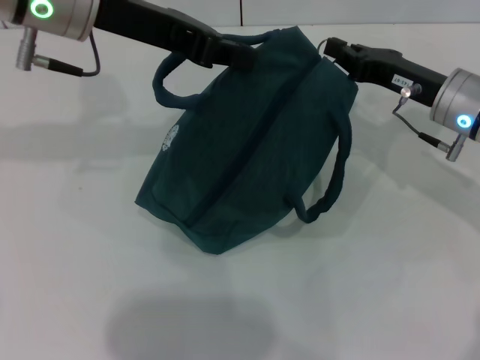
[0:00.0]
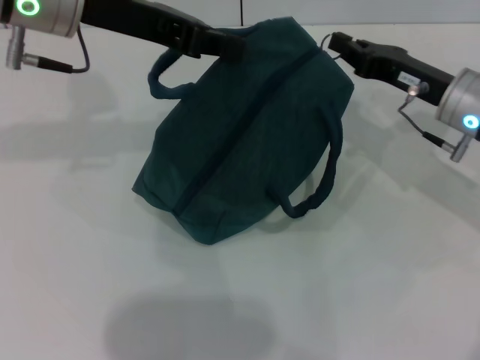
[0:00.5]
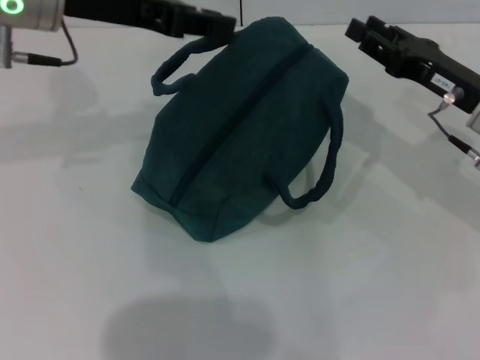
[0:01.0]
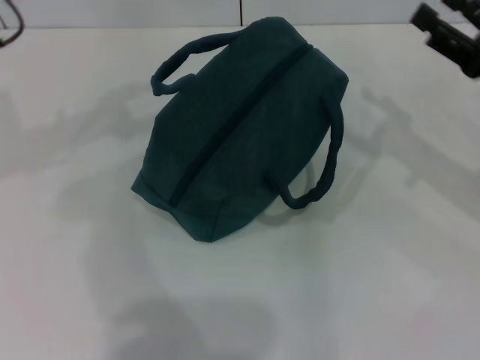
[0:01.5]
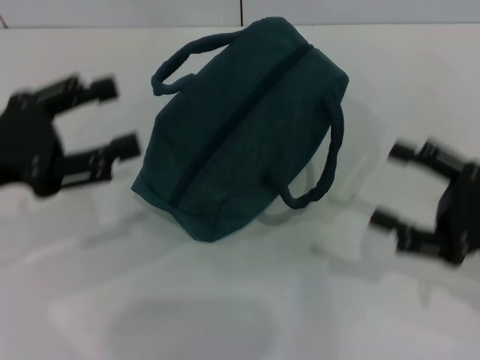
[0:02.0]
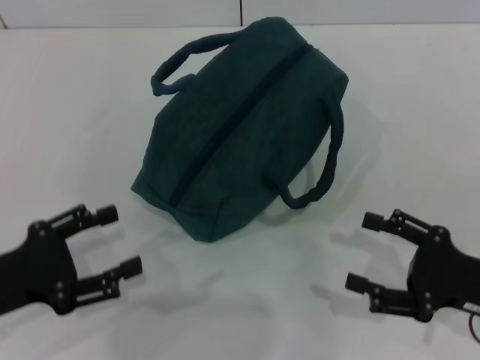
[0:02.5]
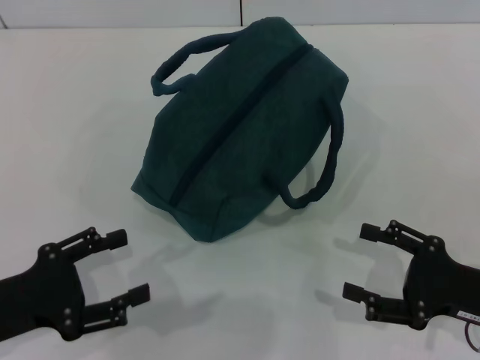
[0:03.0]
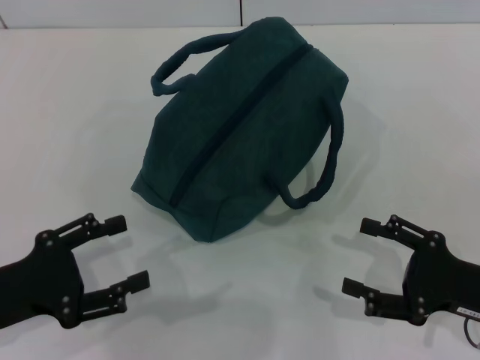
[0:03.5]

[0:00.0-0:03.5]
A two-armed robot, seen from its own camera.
0:00.0 to 0:02.0: The right gripper moves backward and to the right, approximately 15 cm, and opens. Meanwhile the left gripper moves backward, to the left and downward, some 20 cm, and opens.
0:02.0 to 0:03.5: The left gripper moves downward and backward, roughly 10 cm. The right gripper travels downward by about 5 cm.

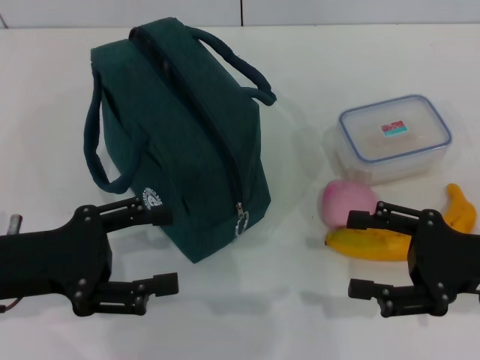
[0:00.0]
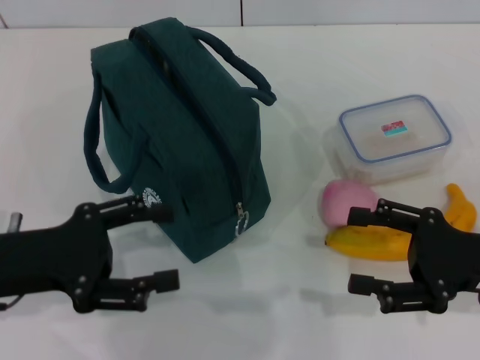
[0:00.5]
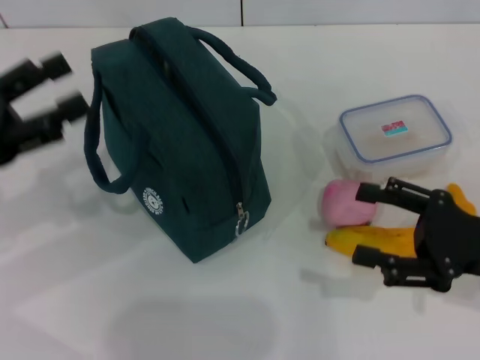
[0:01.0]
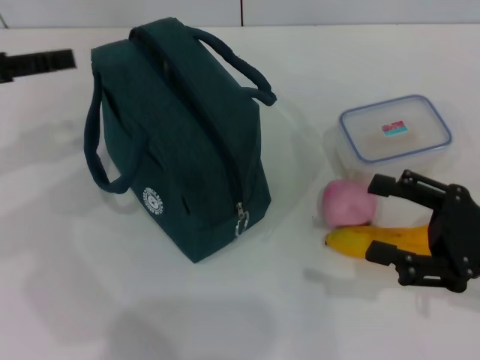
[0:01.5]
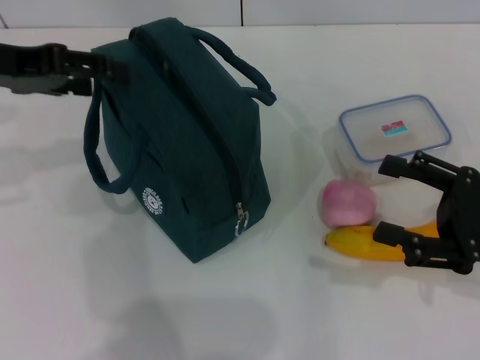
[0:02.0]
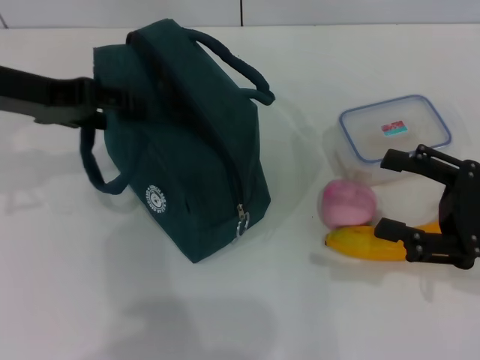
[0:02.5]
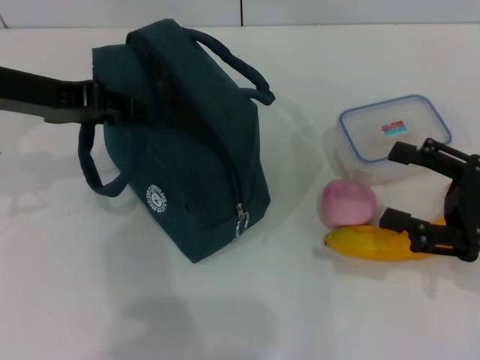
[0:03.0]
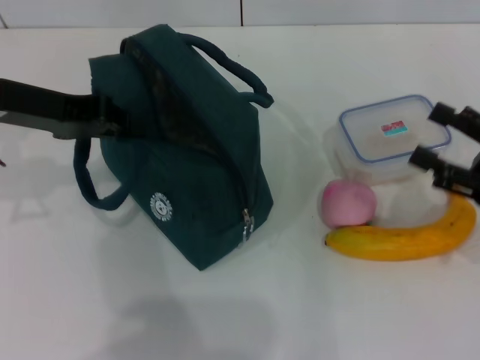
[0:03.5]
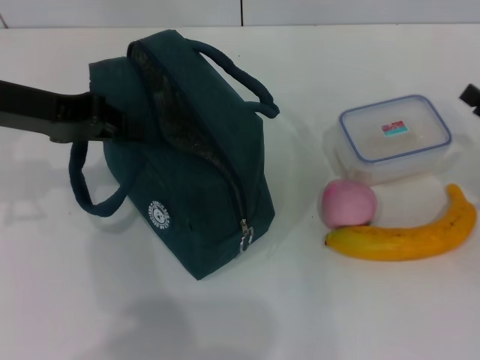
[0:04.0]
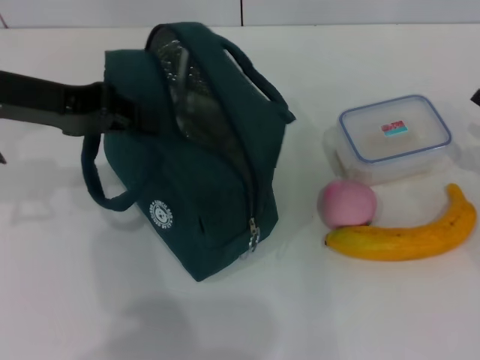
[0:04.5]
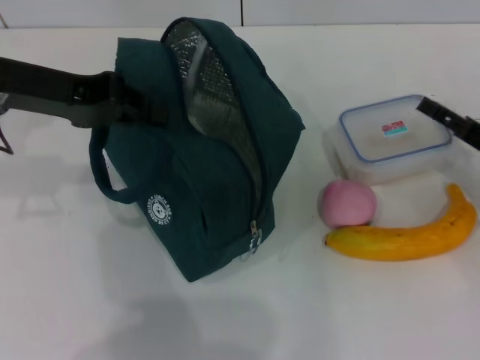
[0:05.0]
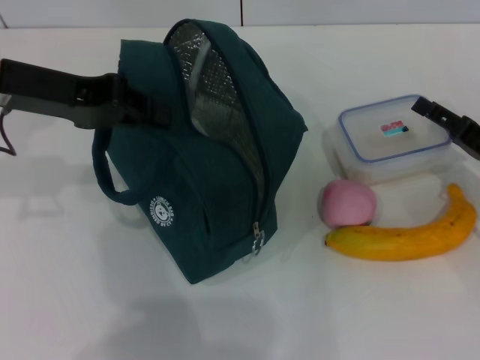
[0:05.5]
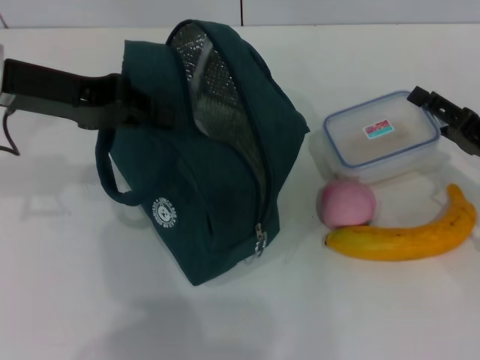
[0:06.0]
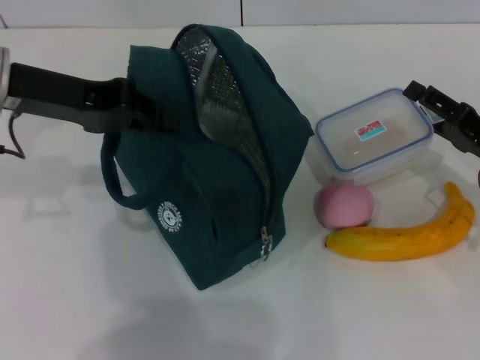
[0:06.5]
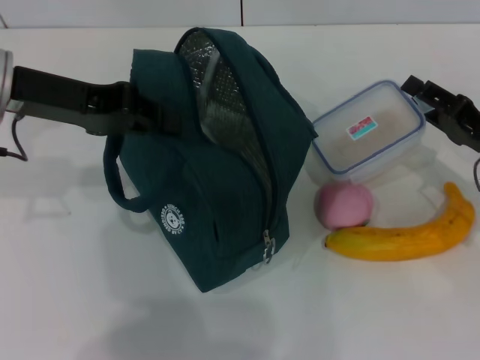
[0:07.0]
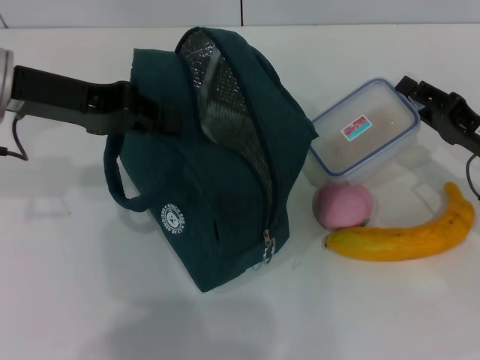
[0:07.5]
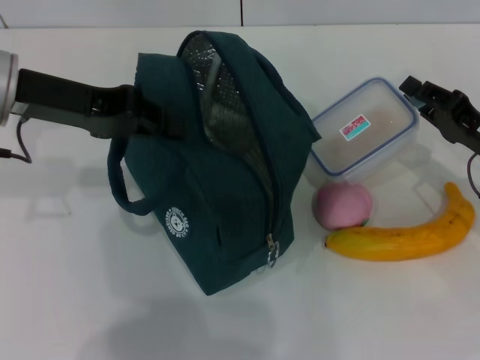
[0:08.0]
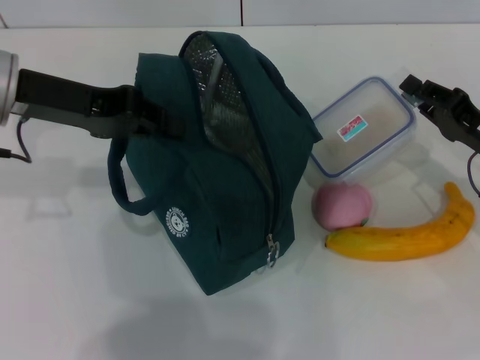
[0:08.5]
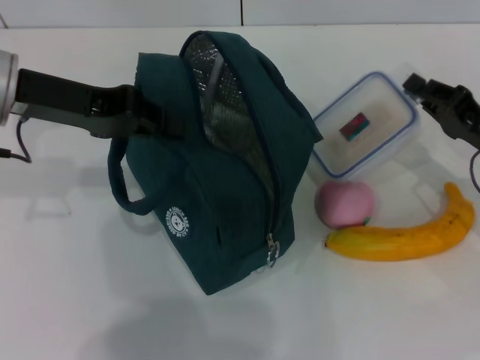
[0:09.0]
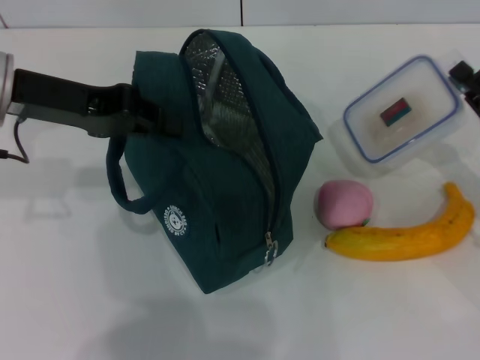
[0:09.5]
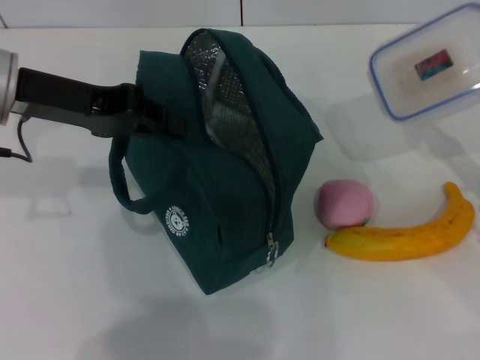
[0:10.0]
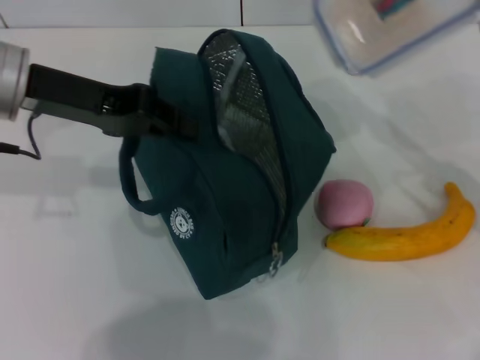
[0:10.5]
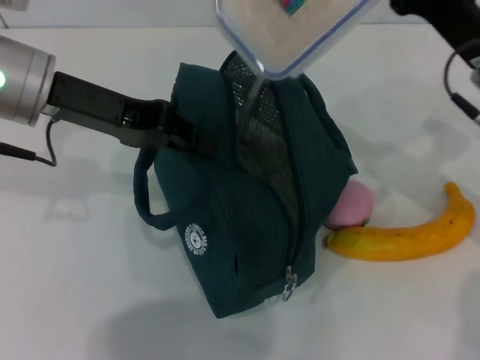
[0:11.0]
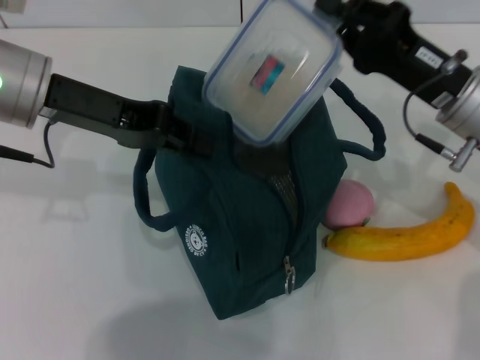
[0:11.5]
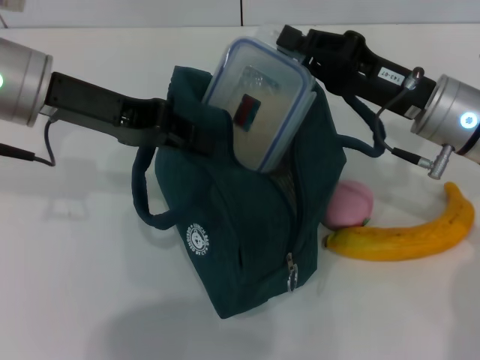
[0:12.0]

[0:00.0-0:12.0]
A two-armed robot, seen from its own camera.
Step, 0:00.0 to 0:04.0: Hold the lunch bag with your left hand.
Step, 0:04.5 to 0:08.5: Pick up the lunch box with your right hand.
0:00.0 to 0:02.0: The left gripper goes approximately 15 cm upward and forward.
0:02.0 to 0:04.0: The right gripper is displaced to the right by about 5 cm. Meanwhile the left gripper closes.
0:04.0 to 0:06.0: The right gripper changes place by roughly 5 cm.
0:06.0 to 0:08.0: The right gripper closes up.
0:08.0 to 0:10.0: The right gripper changes place by roughly 5 cm.
0:10.0 to 0:12.0: The right gripper travels to the left and forward by roughly 15 cm.

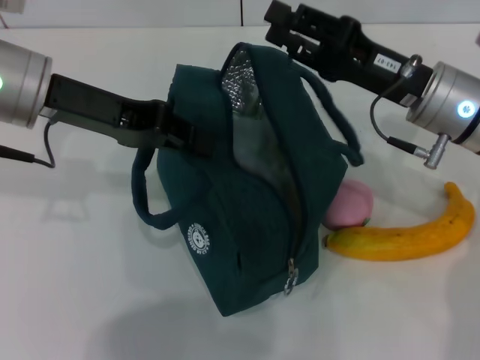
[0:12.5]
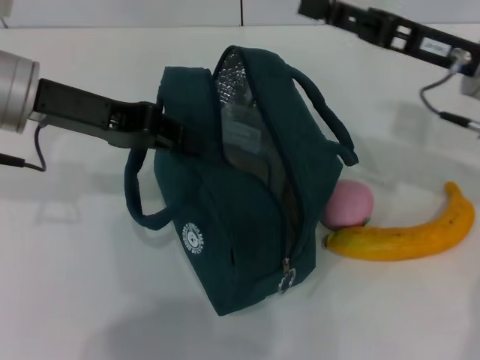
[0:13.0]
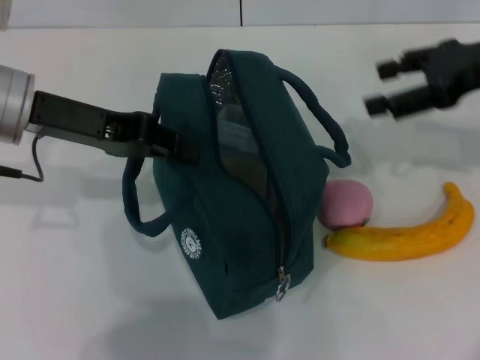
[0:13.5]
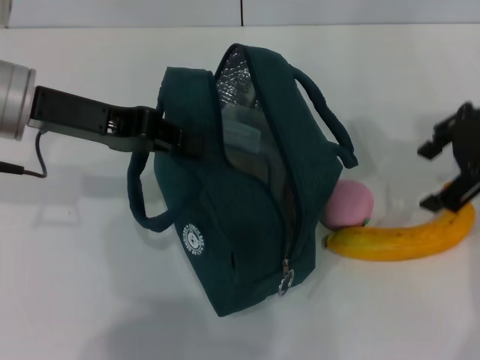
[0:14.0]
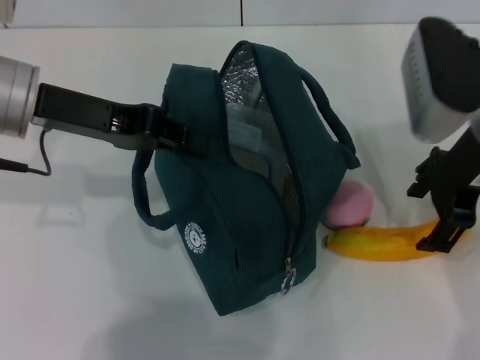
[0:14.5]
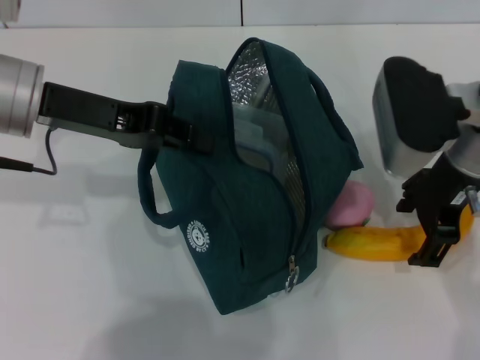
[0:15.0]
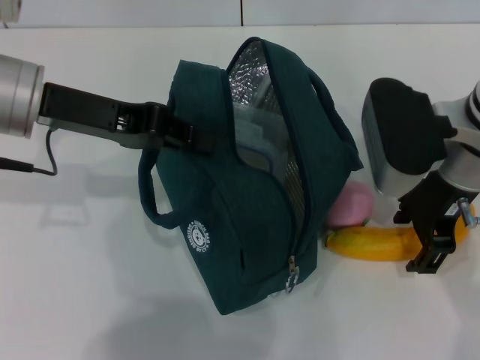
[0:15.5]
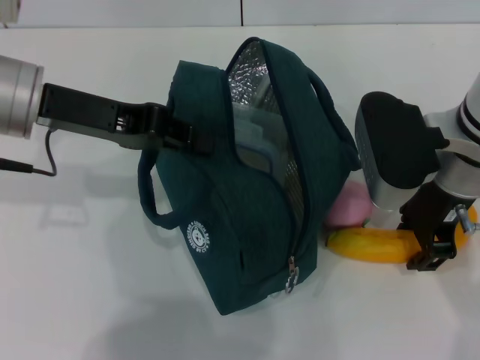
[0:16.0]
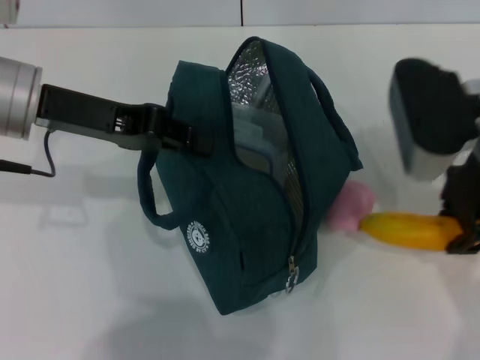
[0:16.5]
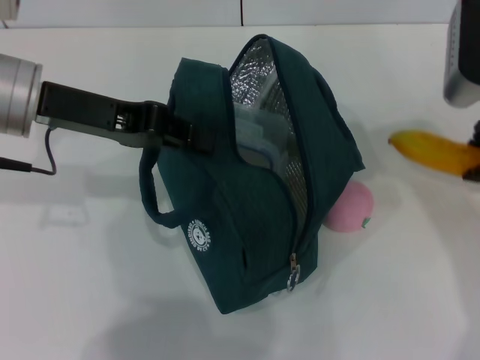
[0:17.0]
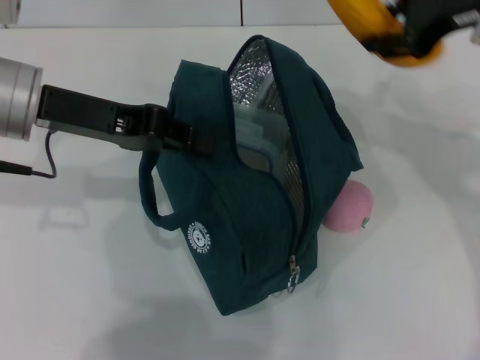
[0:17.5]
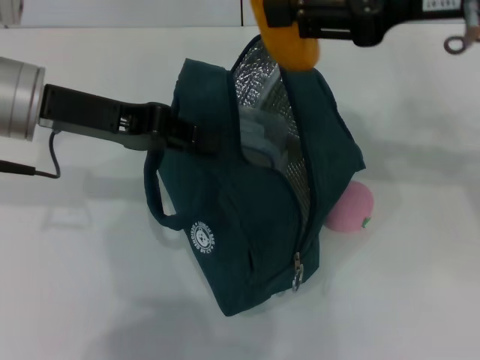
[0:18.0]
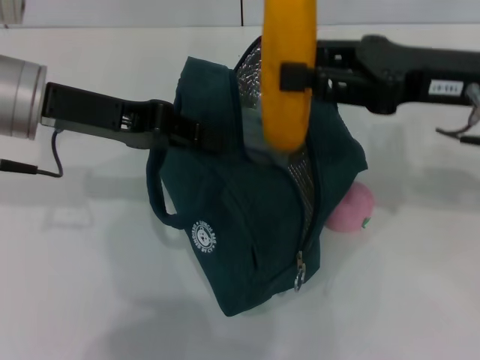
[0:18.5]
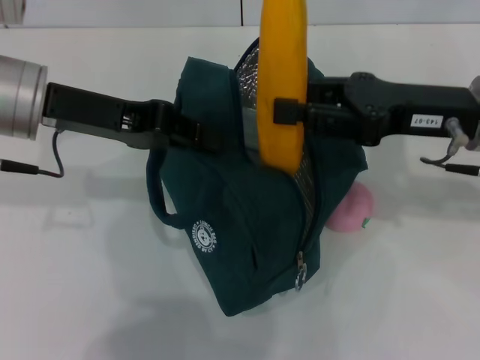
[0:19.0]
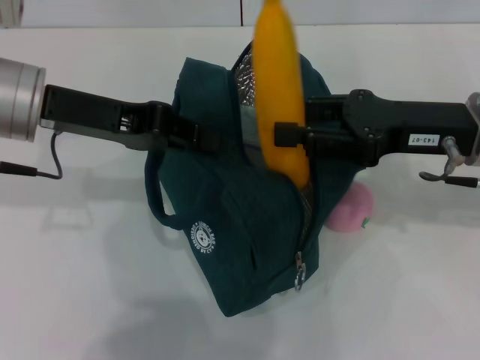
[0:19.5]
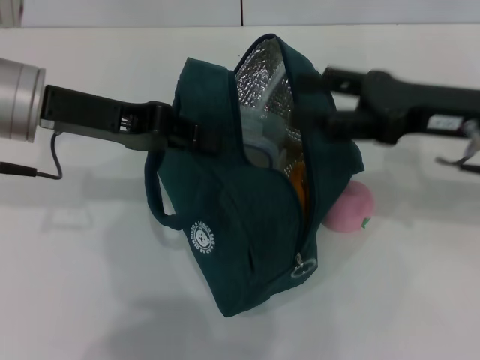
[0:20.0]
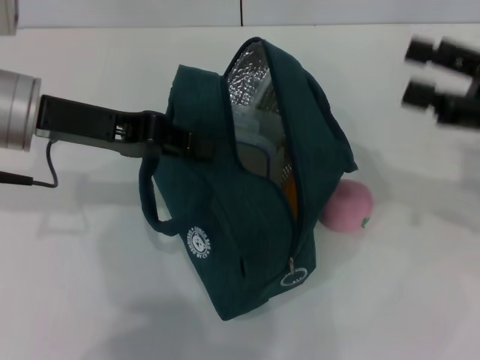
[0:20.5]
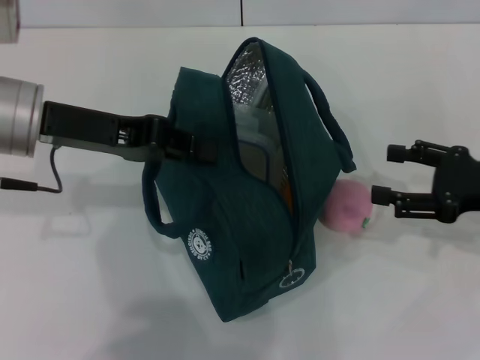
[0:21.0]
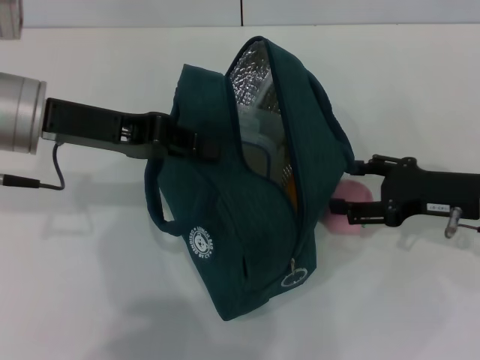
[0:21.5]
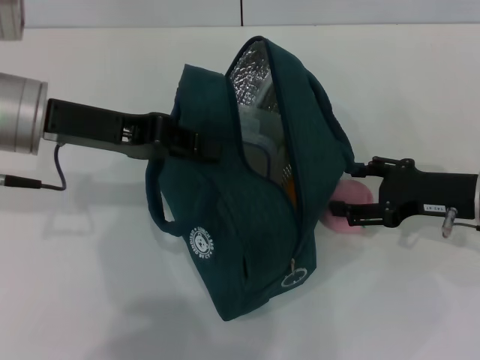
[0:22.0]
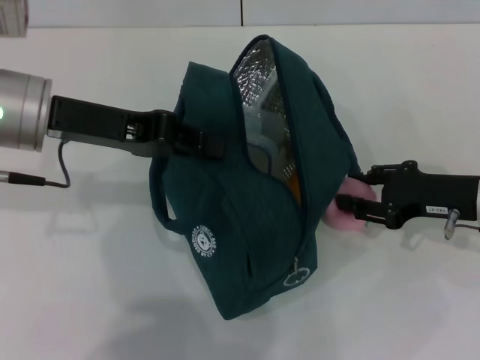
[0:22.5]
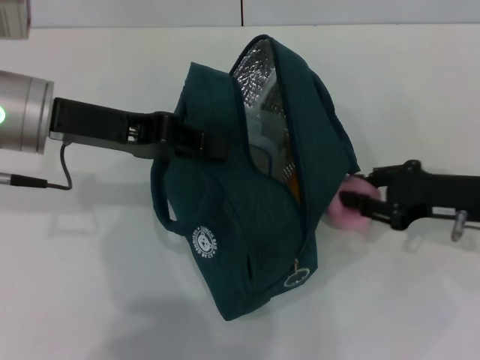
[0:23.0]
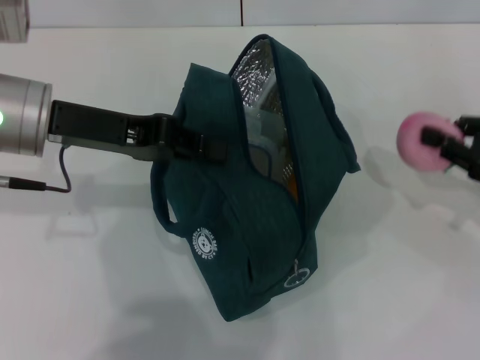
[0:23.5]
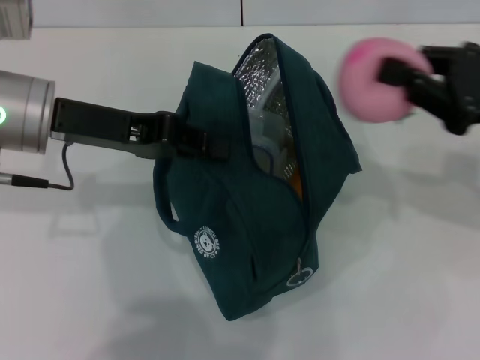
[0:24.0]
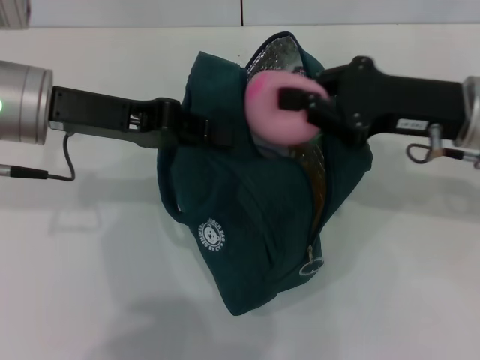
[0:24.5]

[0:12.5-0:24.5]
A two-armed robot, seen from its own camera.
Step, 0:12.5 to 0:15.5: Take the banana with your right hand.
Step, 0:16.5 to 0:19.5: Put the banana into the lunch bag with your right hand.
Step, 0:20.0 to 0:22.5: Grab the peach with your right hand.
0:12.5 to 0:14.5: The right gripper goes approximately 10 cm upward, and opens its fingers.
0:14.5 to 0:16.5: The right gripper closes its fingers.
0:16.5 to 0:18.5: The right gripper goes upward and returns, some 10 cm each way.
0:18.5 to 0:20.5: The right gripper heads to the right, covering approximately 10 cm, and opens up.
0:20.5 to 0:22.5: The right gripper goes roughly 10 cm downward, and closes its fingers.
0:22.5 to 0:24.5: The right gripper is displaced upward and to the left by about 10 cm, and closes.
